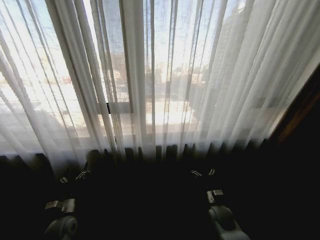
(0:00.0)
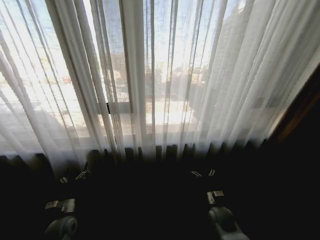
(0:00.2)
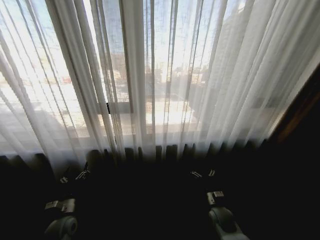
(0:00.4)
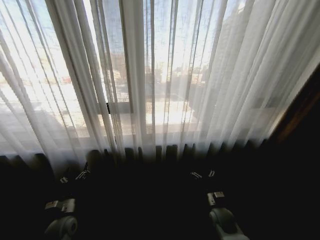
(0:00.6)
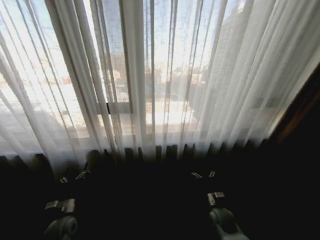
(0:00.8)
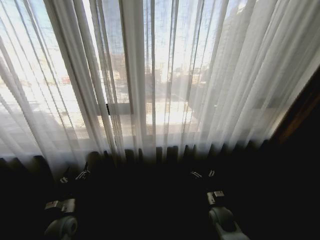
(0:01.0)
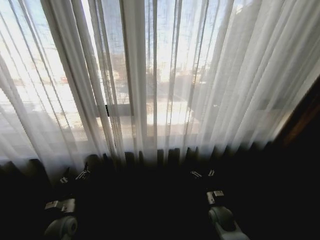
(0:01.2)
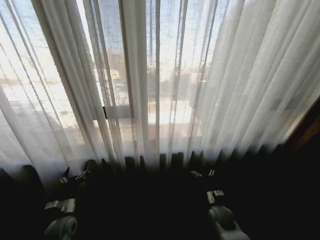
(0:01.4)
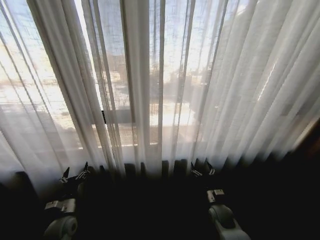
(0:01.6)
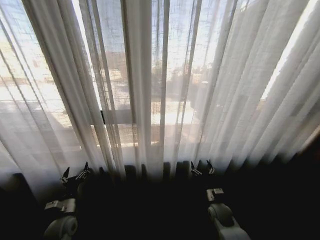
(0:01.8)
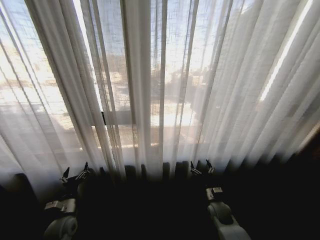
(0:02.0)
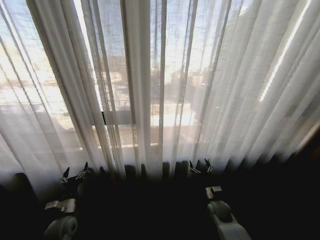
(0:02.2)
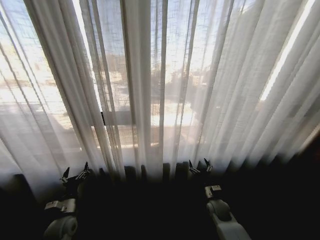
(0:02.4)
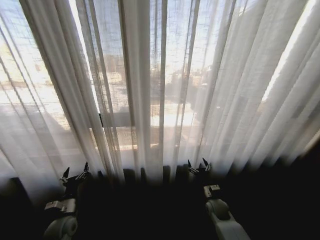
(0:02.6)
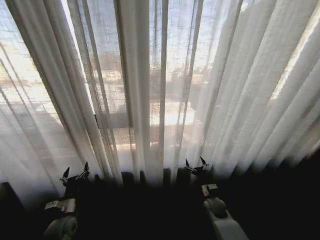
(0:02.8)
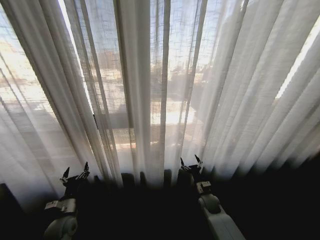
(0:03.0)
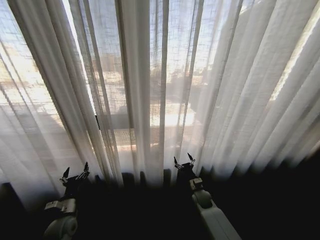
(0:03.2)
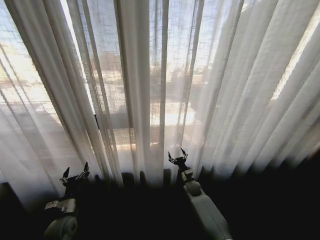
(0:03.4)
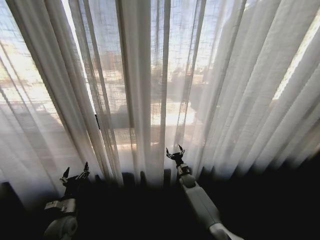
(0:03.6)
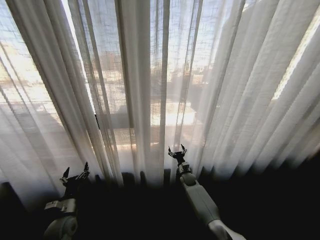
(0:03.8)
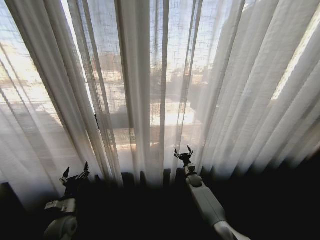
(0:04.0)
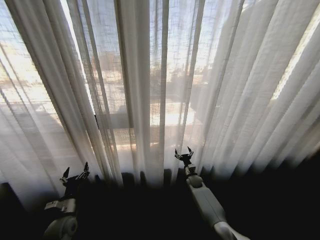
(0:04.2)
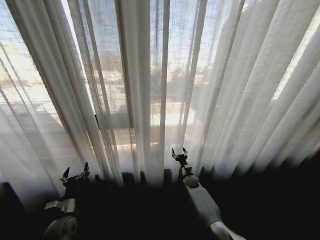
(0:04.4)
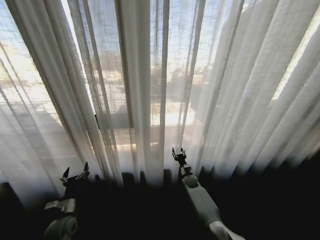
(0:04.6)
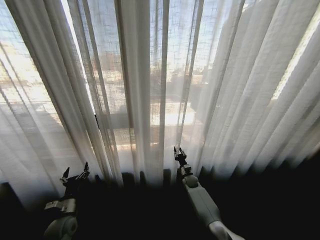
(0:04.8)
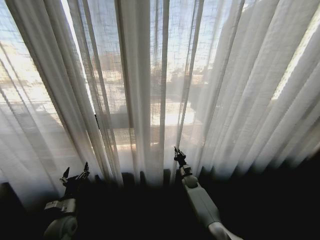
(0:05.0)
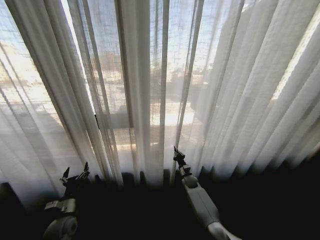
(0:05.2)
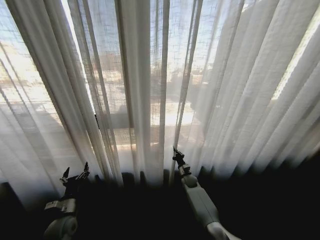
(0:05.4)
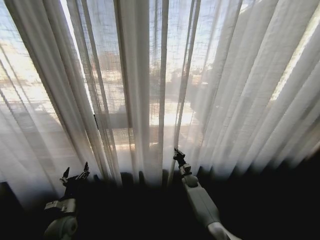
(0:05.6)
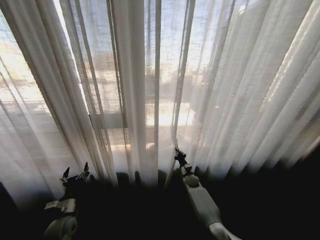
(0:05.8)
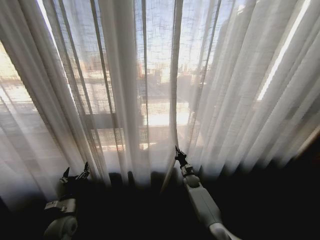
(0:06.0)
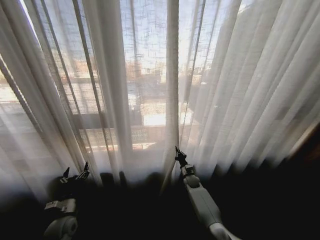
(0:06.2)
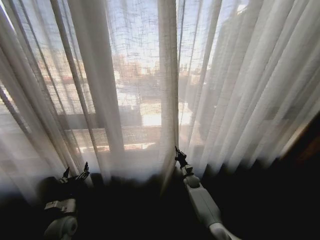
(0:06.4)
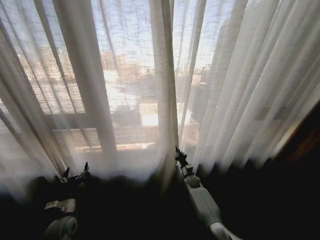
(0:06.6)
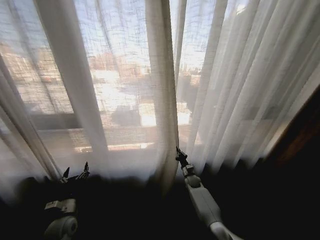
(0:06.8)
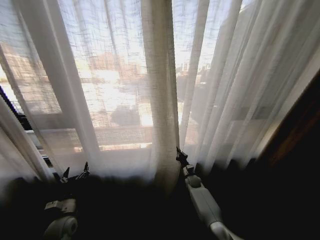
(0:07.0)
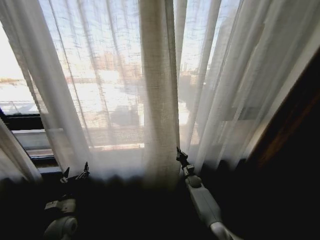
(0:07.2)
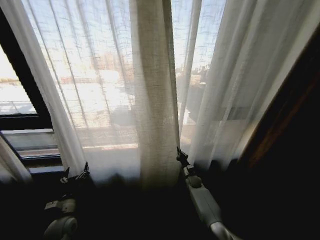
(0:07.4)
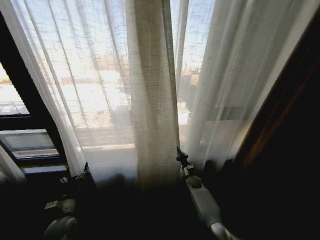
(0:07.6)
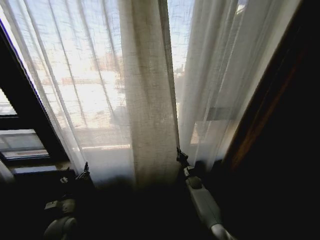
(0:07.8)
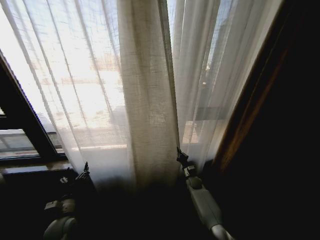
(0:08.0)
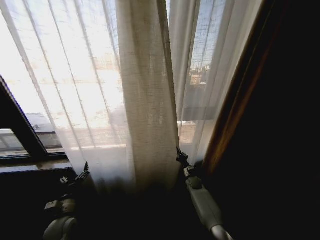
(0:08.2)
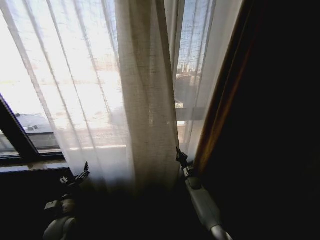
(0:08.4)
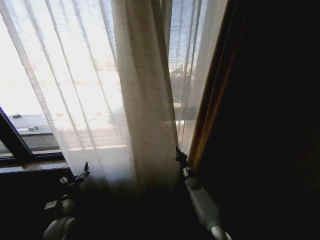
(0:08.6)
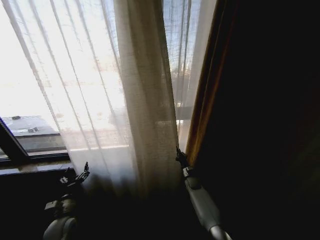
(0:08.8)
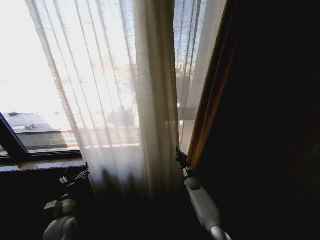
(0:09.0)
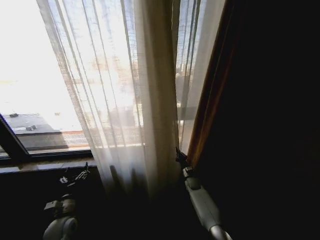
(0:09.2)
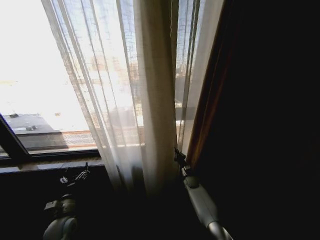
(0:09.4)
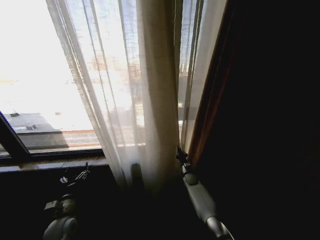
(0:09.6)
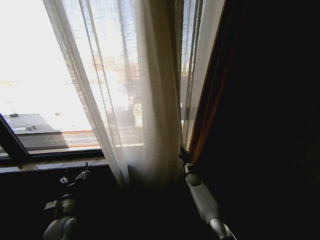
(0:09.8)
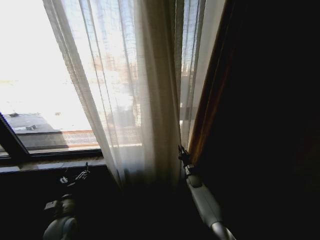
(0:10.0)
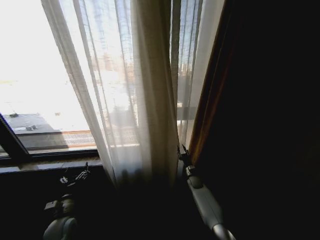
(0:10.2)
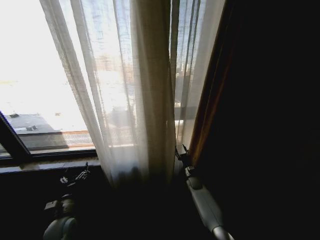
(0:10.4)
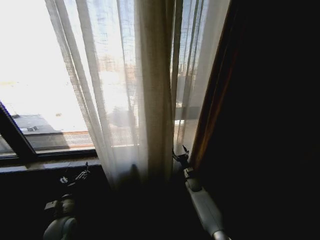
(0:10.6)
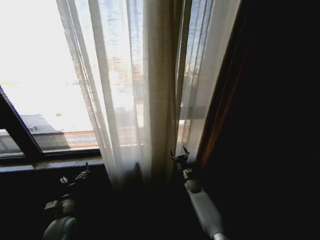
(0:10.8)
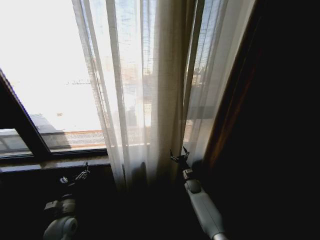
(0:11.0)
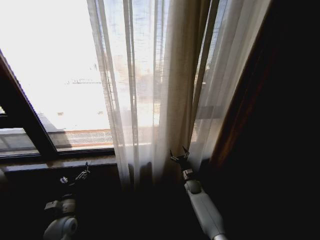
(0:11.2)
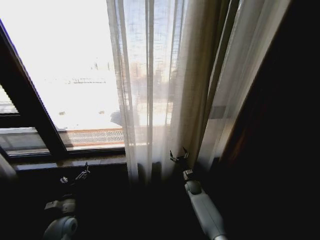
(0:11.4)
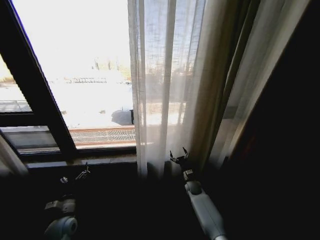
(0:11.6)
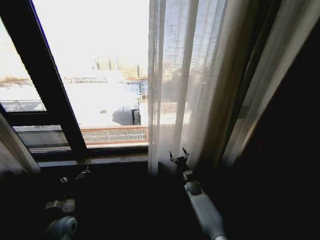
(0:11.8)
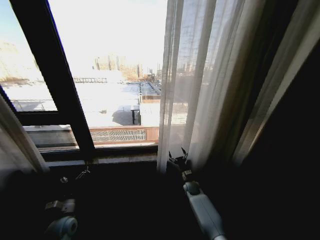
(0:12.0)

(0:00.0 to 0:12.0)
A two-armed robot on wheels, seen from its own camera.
Task of the whole recording: Open the curtains by pulling them apart, changing their state from closed to fully open.
0:01.6 - 0:03.0: The right gripper travels forward by roughly 5 cm.
0:03.0 - 0:04.4: The right gripper moves forward, roughly 15 cm.
0:04.4 - 0:06.0: The right gripper closes its fingers.
0:09.0 - 0:10.4: The right gripper opens its fingers.
0:10.4 - 0:12.0: The right gripper opens.

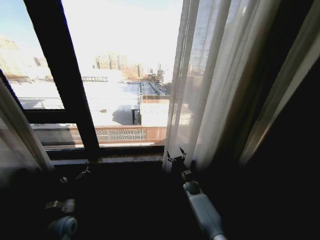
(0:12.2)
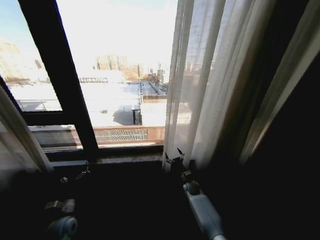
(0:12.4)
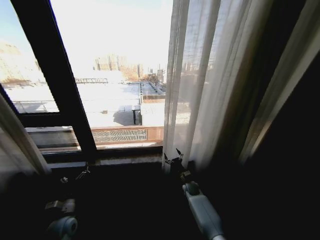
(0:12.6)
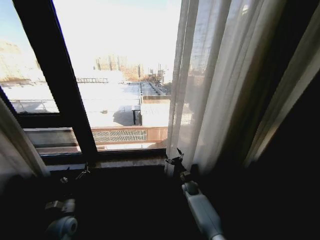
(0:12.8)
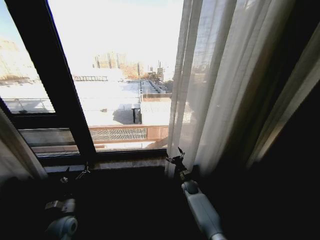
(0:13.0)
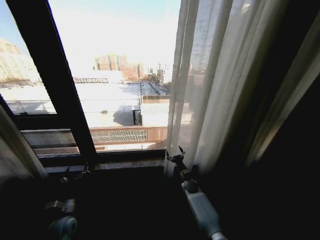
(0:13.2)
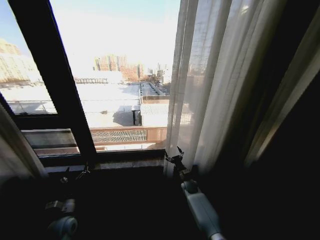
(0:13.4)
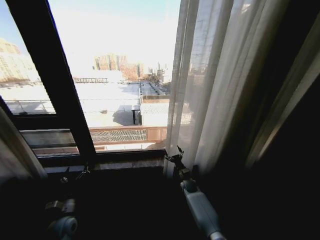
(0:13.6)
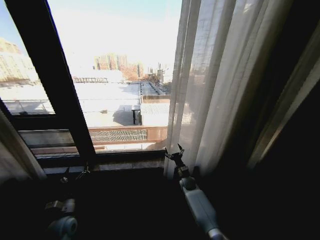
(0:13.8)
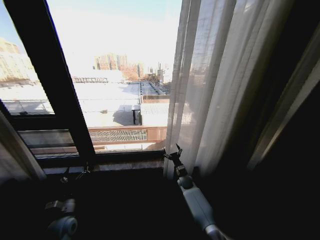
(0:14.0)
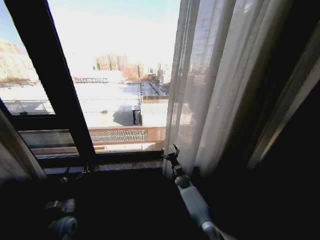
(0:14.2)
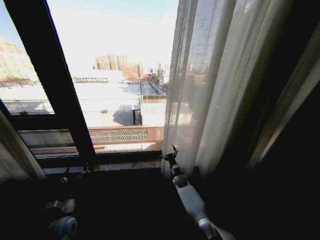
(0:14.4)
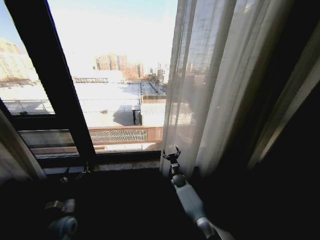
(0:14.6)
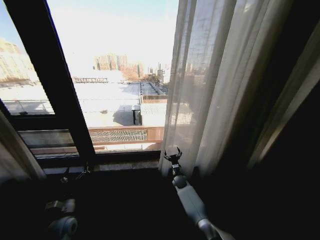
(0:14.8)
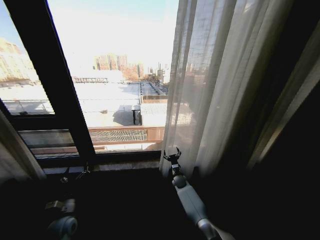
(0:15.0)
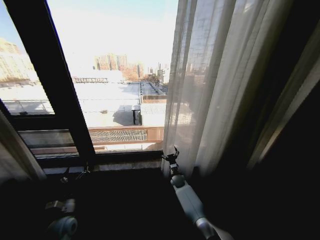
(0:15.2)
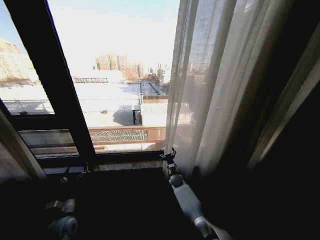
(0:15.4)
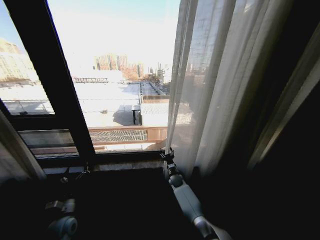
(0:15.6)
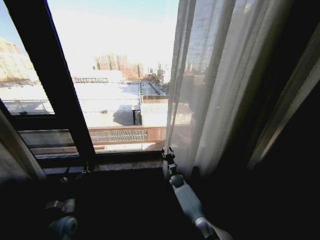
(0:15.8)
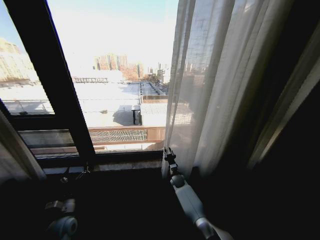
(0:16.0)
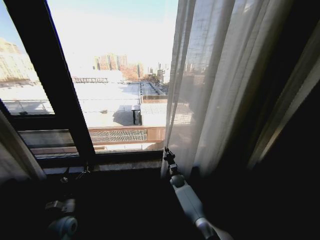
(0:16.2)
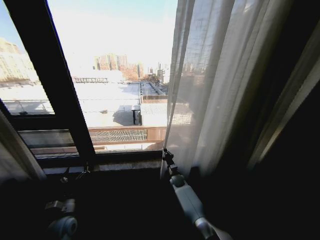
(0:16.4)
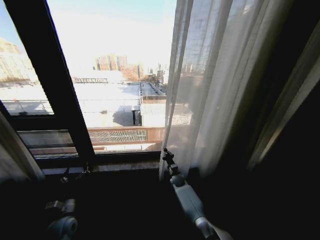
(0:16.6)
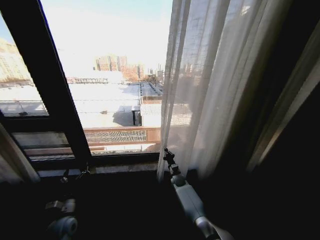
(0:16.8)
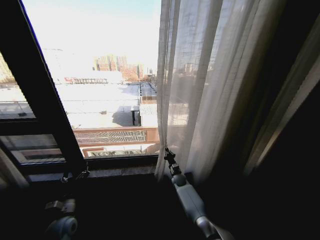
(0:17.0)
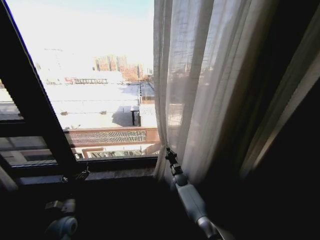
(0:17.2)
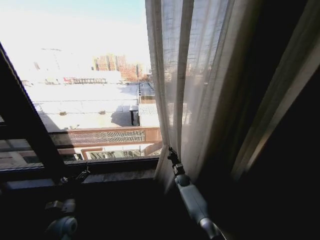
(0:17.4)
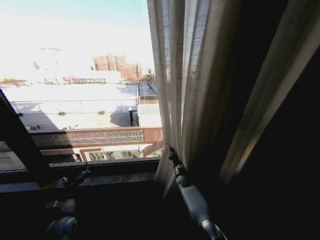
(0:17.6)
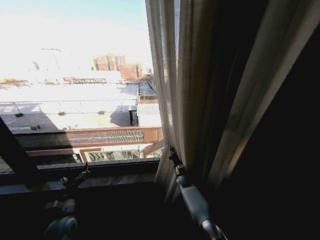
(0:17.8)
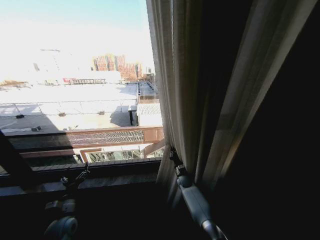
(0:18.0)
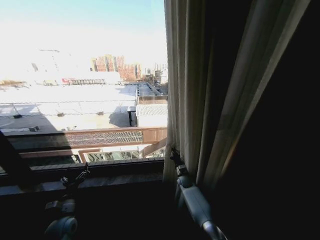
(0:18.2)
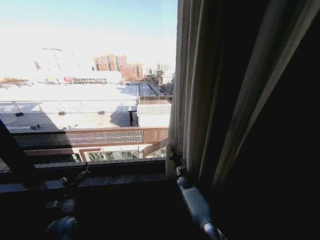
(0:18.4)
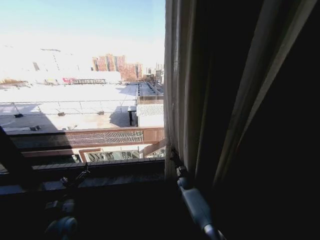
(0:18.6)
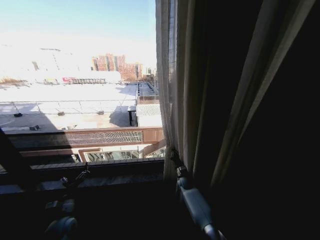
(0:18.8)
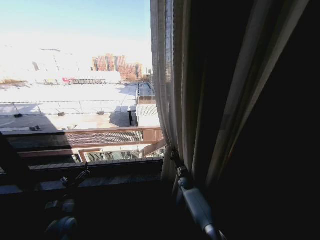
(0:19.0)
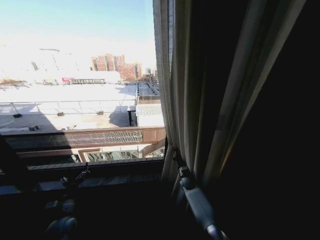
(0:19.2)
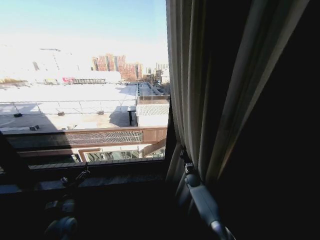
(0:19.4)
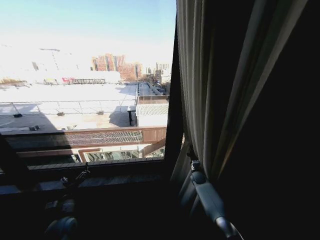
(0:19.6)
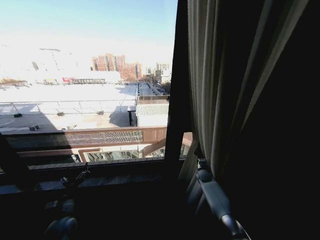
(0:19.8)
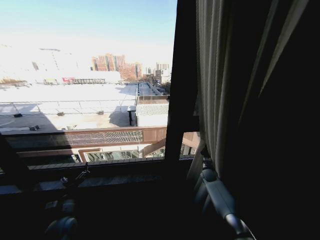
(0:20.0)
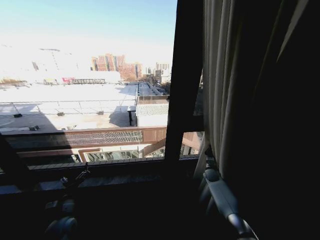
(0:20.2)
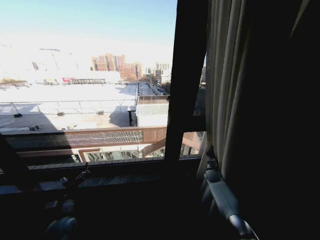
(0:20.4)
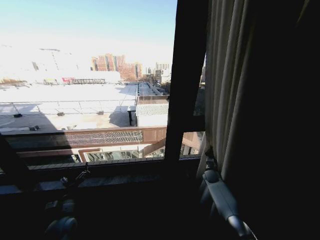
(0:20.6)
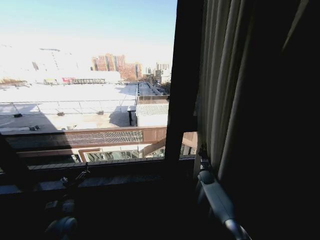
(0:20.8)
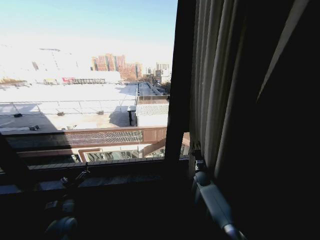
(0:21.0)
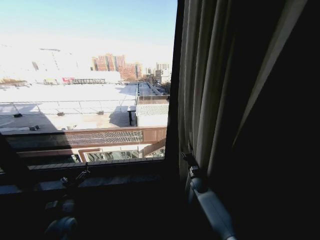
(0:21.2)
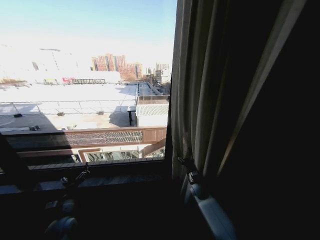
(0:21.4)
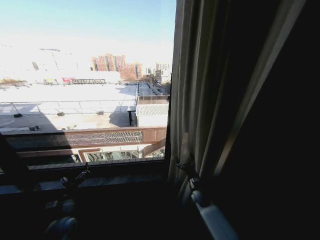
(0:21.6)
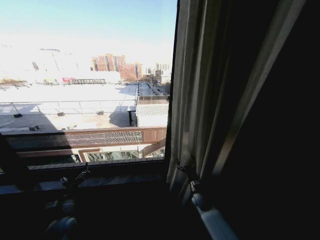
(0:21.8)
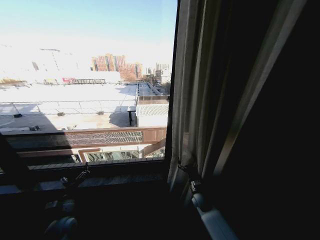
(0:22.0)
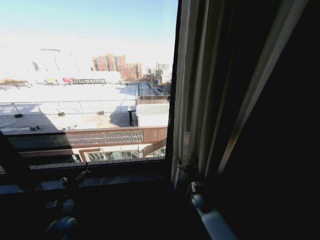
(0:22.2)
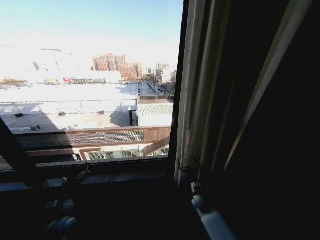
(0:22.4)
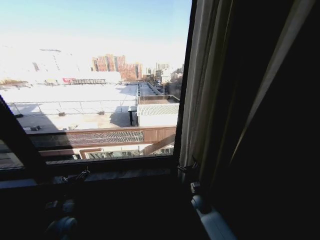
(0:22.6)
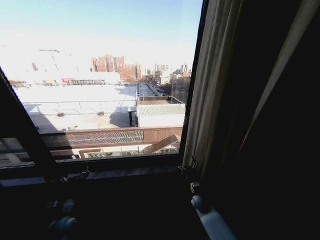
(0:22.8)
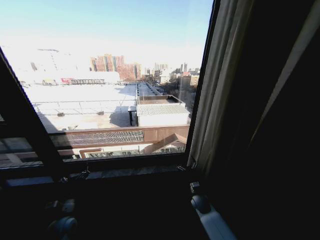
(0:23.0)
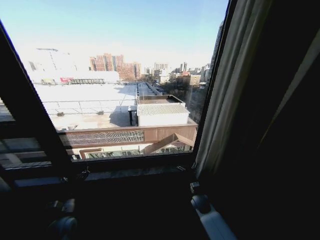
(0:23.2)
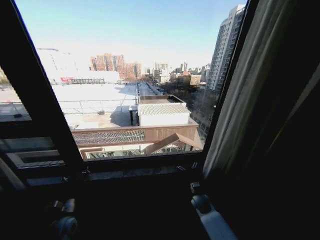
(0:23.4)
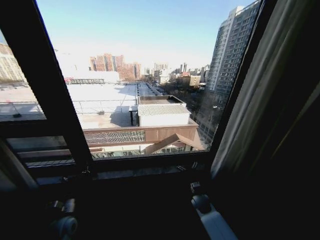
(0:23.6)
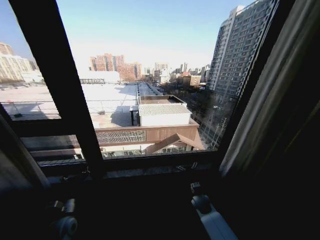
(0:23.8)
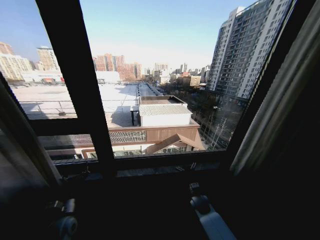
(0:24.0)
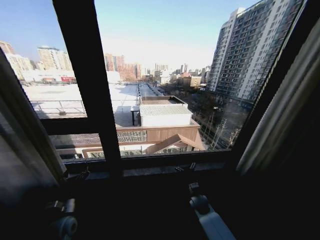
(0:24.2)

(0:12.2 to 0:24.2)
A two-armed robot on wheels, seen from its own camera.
Task of the whole recording: Open the curtains by pulling them apart, changing their state from closed to fully open.
0:13.8 - 0:15.2: The right gripper is displaced to the left by some 5 cm.
0:15.2 - 0:16.6: The right gripper closes its fingers.
0:18.2 - 0:19.8: The right gripper shifts some 15 cm to the right.
0:19.8 - 0:21.2: The right gripper travels to the left by roughly 5 cm, and opens up.
0:21.2 - 0:22.6: The right gripper goes roughly 10 cm backward, and opens.
